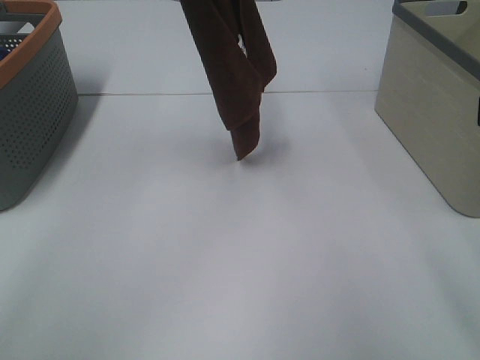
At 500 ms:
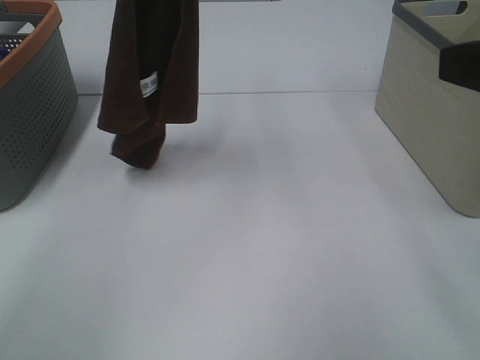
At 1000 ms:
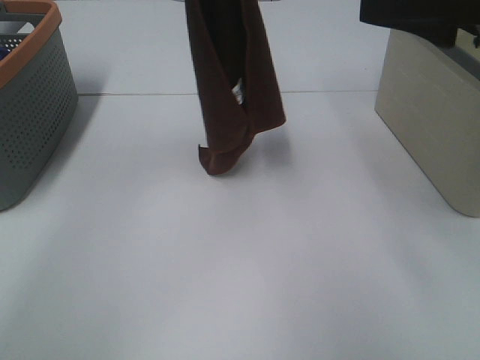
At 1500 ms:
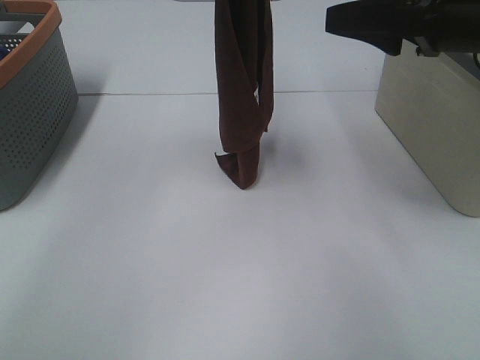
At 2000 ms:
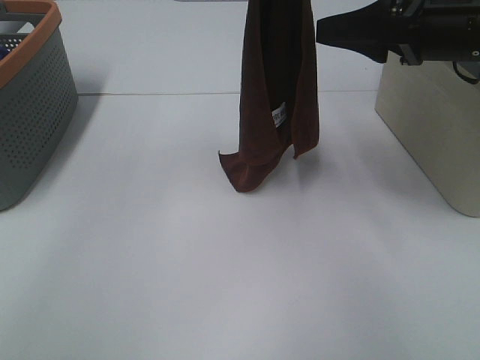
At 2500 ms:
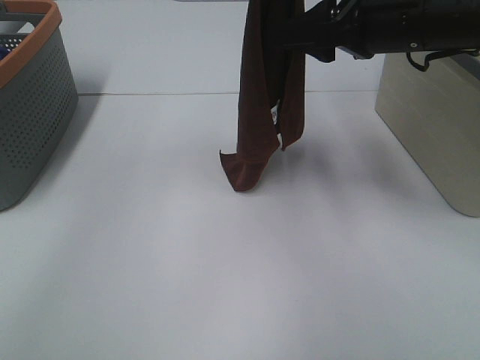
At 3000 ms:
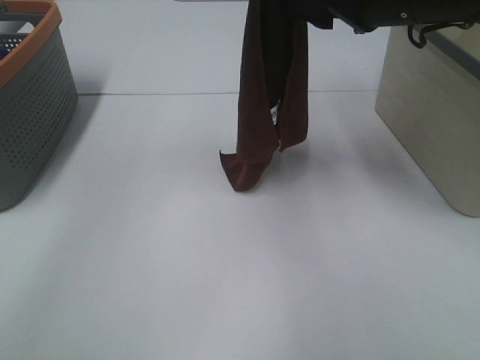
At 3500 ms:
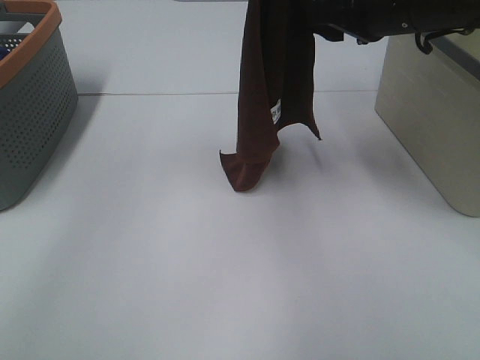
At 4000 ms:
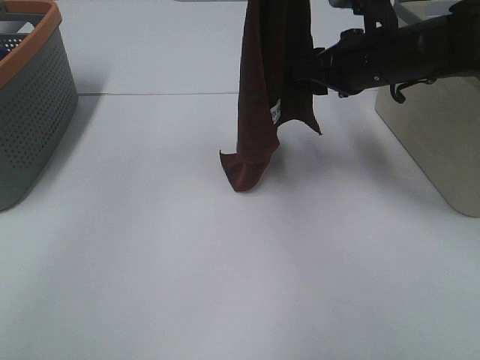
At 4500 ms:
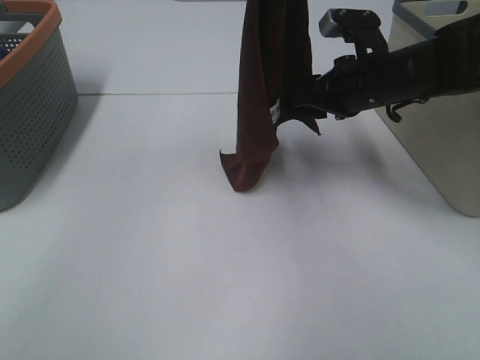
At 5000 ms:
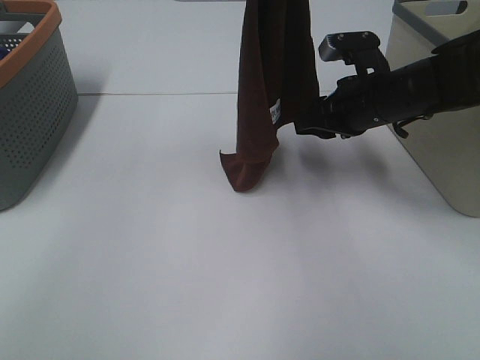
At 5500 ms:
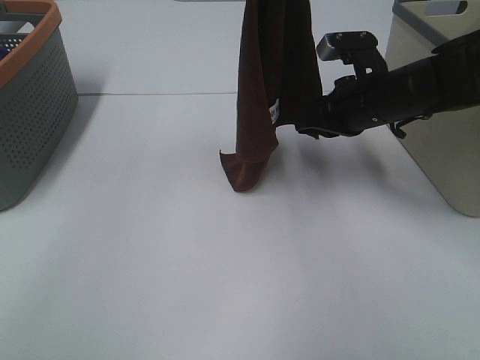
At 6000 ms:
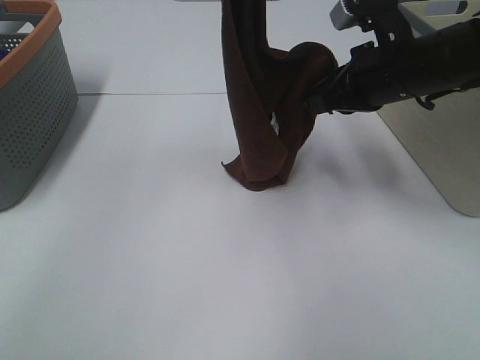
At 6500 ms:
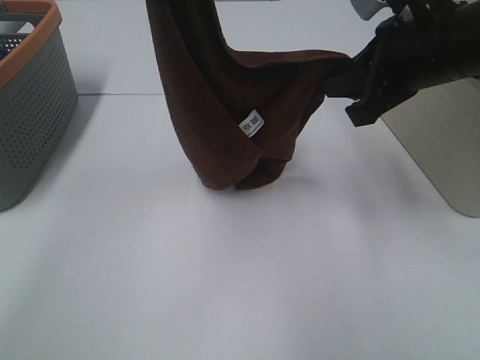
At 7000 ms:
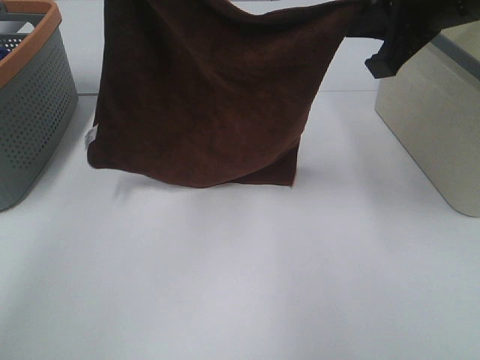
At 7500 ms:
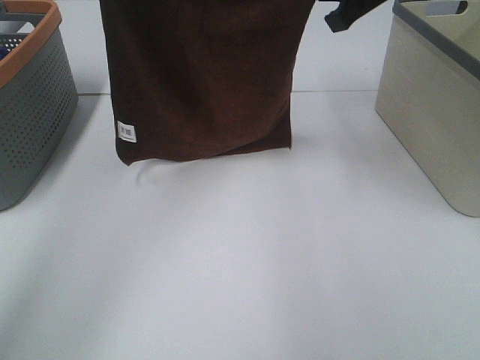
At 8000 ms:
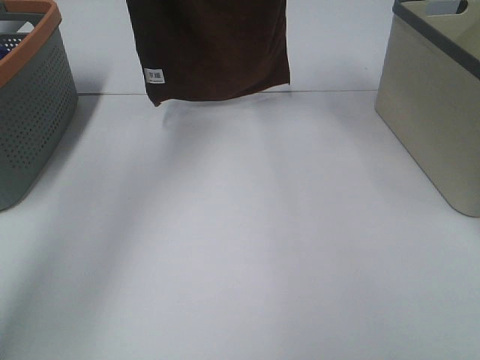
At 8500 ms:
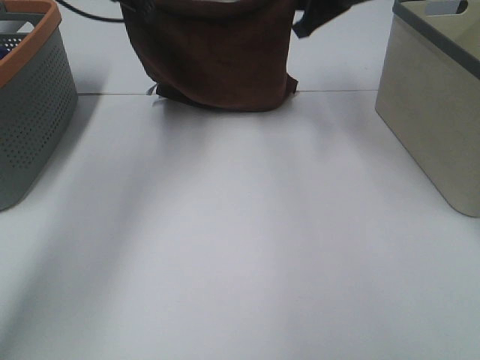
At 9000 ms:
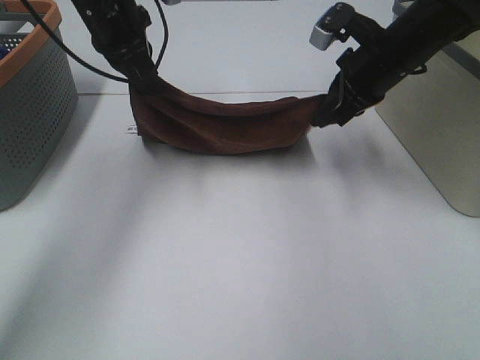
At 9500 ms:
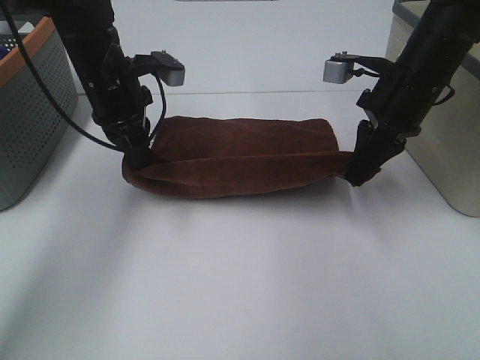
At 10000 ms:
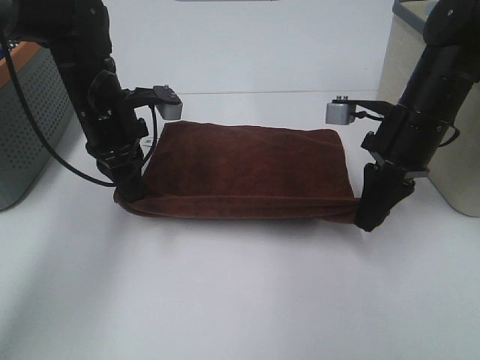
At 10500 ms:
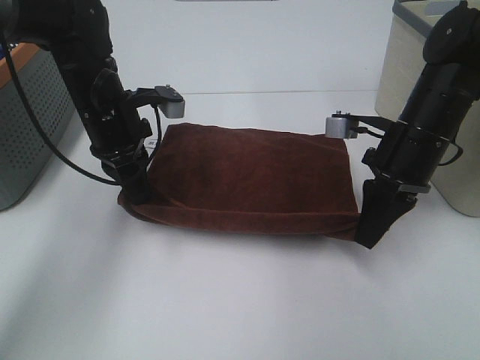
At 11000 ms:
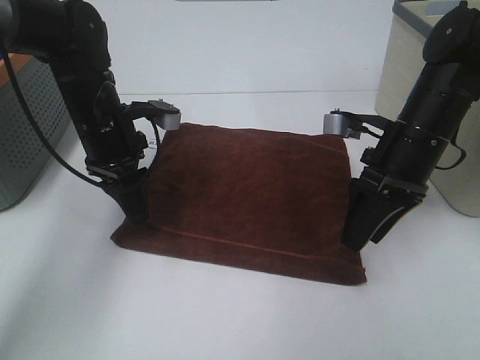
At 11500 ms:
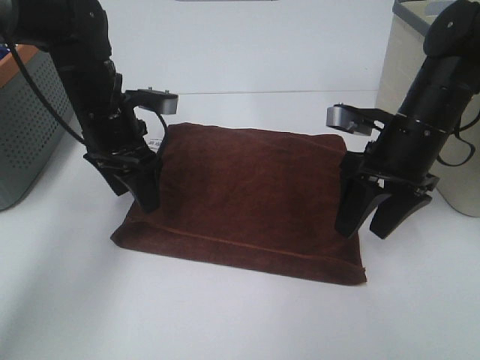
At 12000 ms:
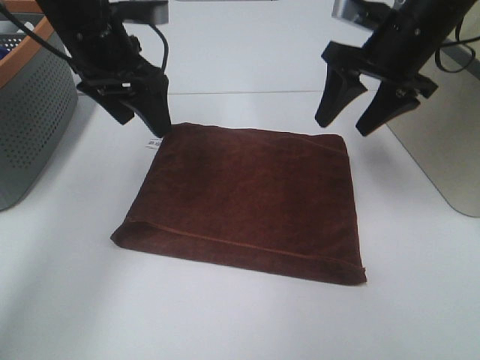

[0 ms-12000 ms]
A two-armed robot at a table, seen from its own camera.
Task of the whole recording: Remove the towel and place it.
Step, 0 ms to 3500 ms: Right hand: grab a corner of the brown towel and straighten it.
Step, 4000 ms to 6000 ms: Left hand: spread the brown towel flat on the table.
Step, 4000 ms to 6000 ms: Right hand: spread the brown towel flat on the table.
0 ms to 2000 ms: The left gripper goes roughly 10 cm to the right and downward. Meanwhile the right gripper goes approximately 20 cm forward.
2000 ms to 4000 ms: The right gripper travels downward and forward by some 10 cm.
4000 ms to 6000 ms: The right gripper closes up.
6000 ms to 8000 ms: The left gripper heads forward and to the left, covering approximately 20 cm. Meanwhile the right gripper goes about 20 cm forward and upward.
8000 ms to 10000 ms: The two grippers go roughly 25 cm downward and backward.
10000 ms to 12000 ms: The right gripper shifts some 10 cm upward and forward, and opens. The left gripper goes some 10 cm upward, and opens.

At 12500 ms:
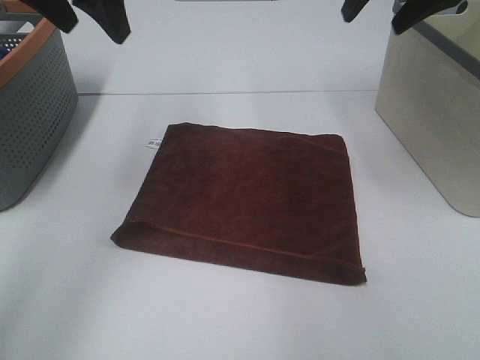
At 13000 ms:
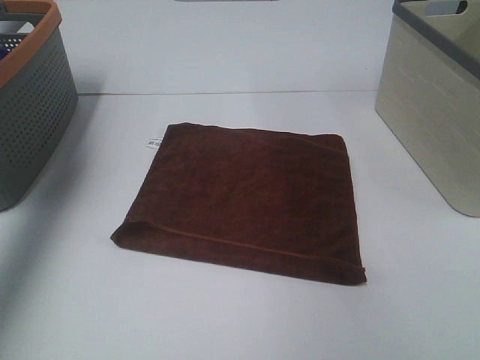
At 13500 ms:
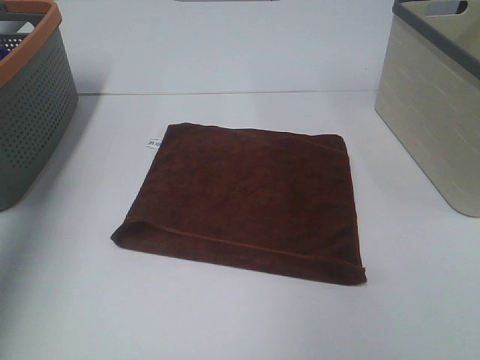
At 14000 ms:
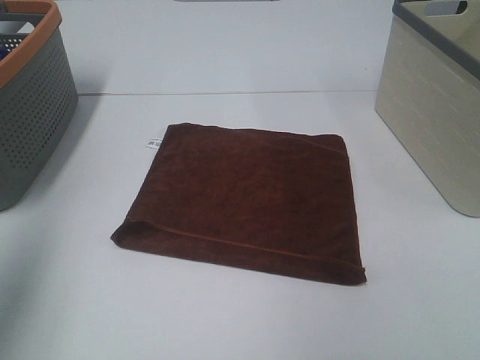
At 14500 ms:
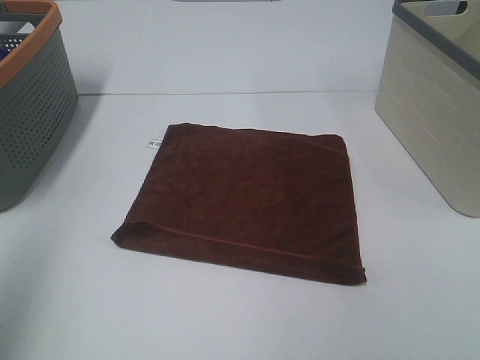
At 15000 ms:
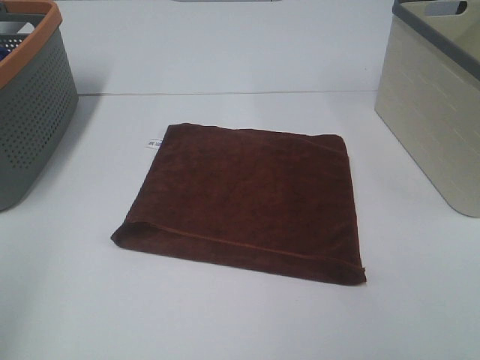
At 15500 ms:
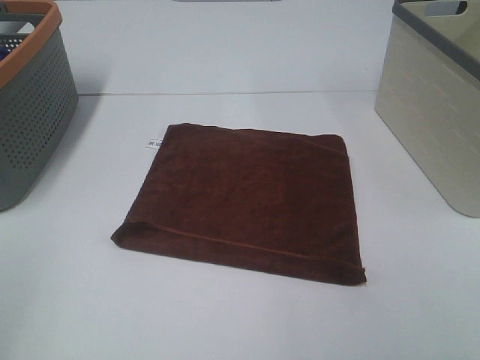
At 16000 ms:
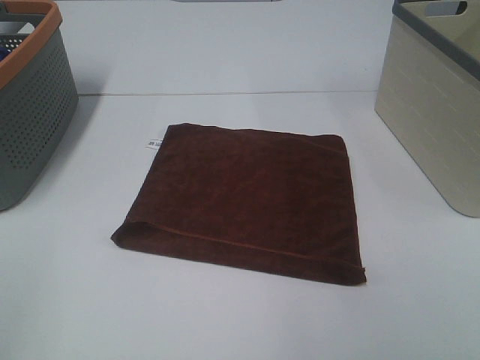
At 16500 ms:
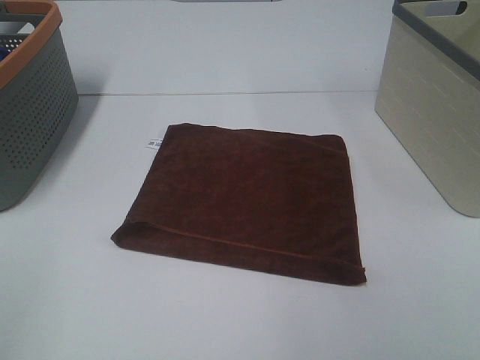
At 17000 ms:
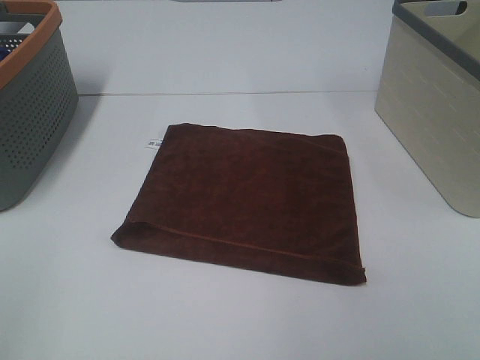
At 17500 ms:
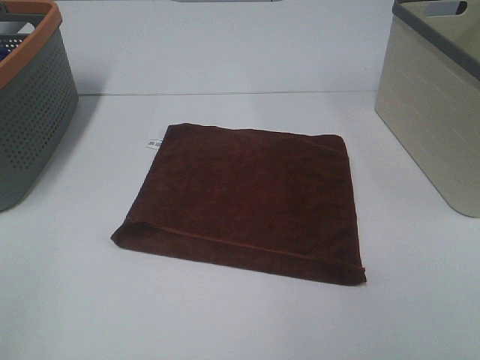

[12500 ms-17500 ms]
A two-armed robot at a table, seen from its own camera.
Task of the whole recording: Remove the towel and place it.
12500 ms to 15000 ms: The left gripper travels backward and to the left by about 35 cm; the right gripper is displaced backward by approximately 40 cm.

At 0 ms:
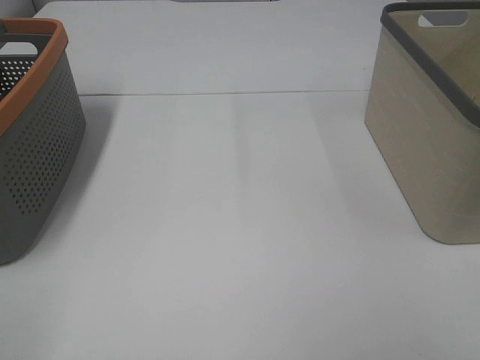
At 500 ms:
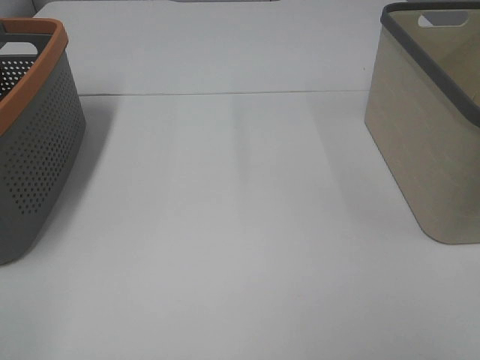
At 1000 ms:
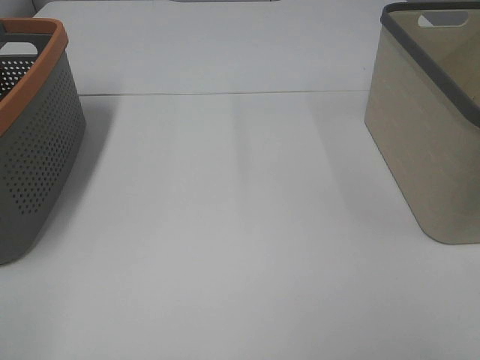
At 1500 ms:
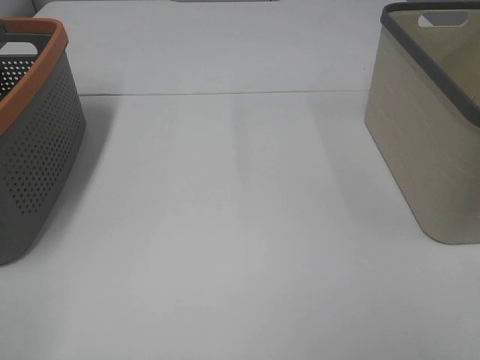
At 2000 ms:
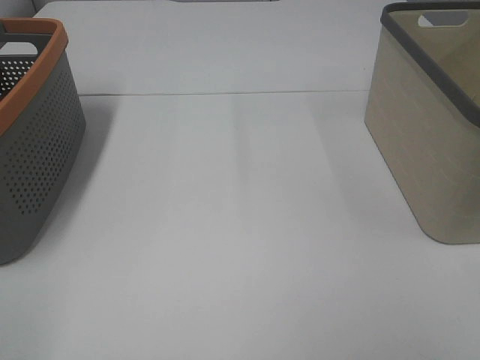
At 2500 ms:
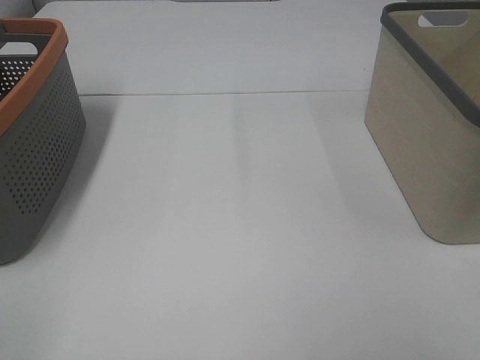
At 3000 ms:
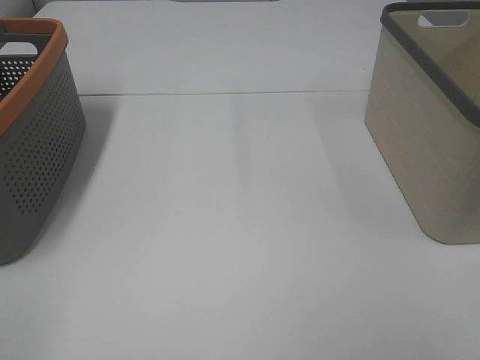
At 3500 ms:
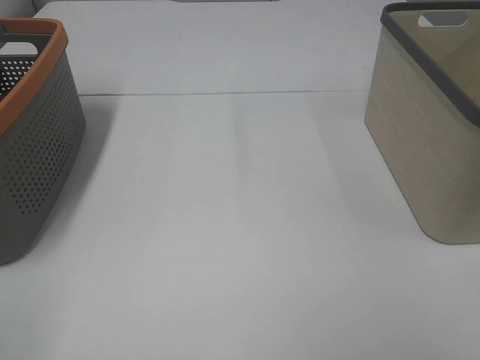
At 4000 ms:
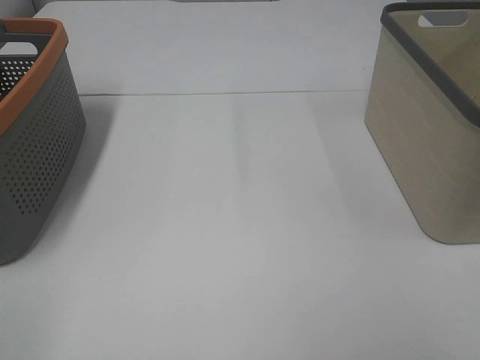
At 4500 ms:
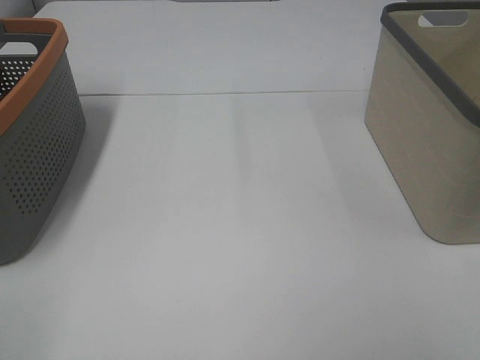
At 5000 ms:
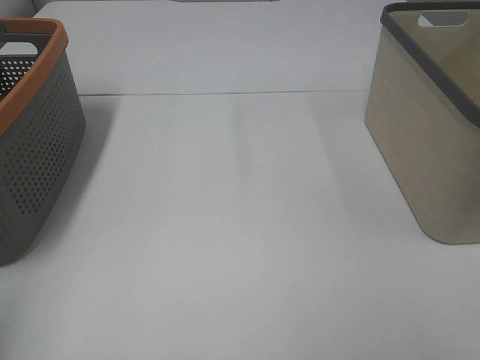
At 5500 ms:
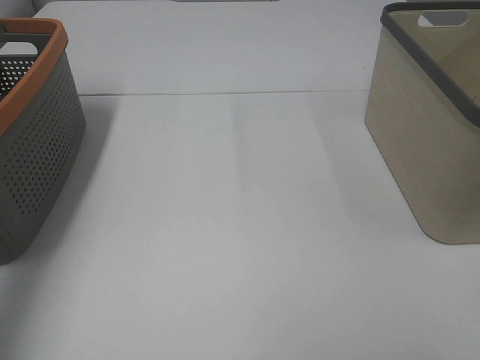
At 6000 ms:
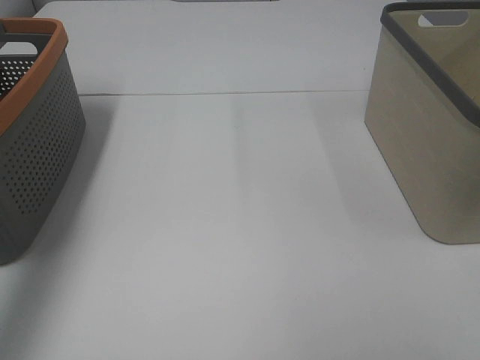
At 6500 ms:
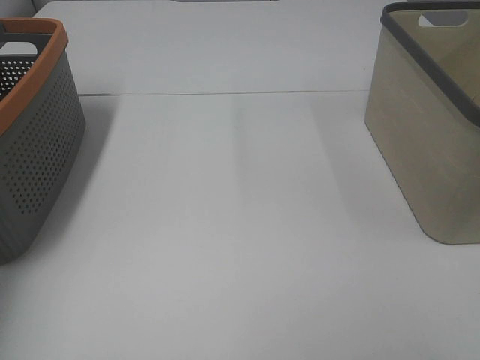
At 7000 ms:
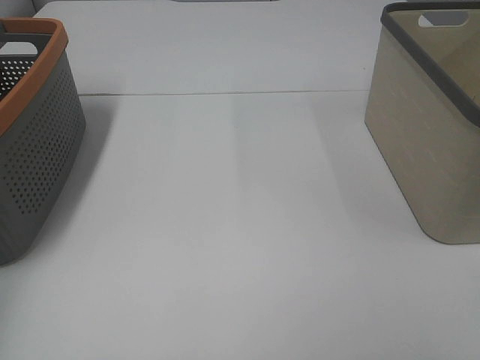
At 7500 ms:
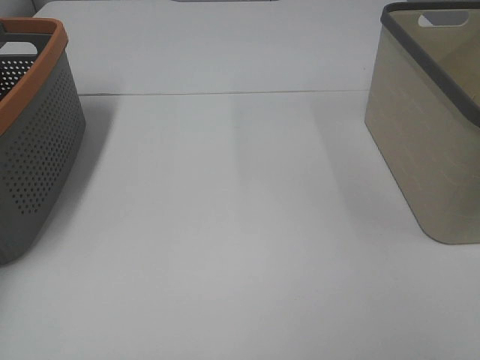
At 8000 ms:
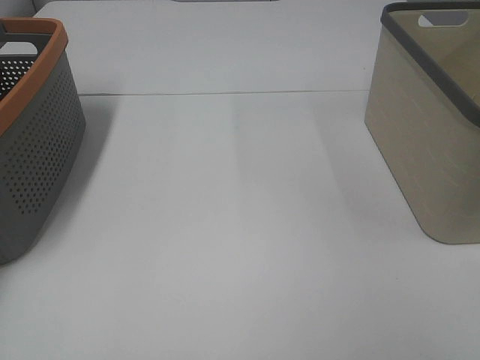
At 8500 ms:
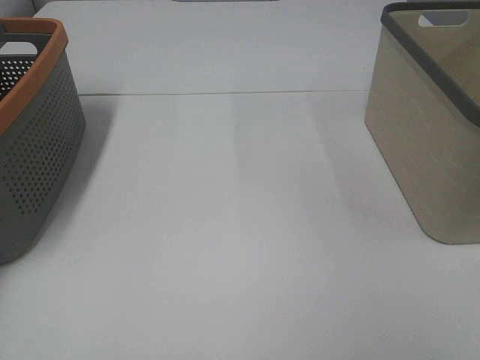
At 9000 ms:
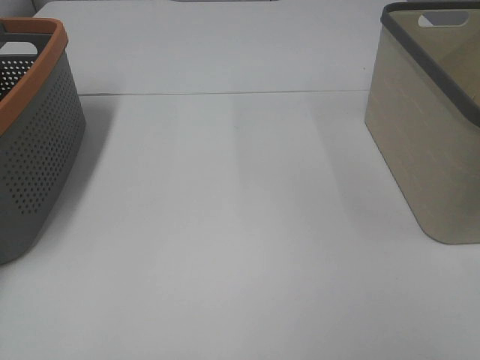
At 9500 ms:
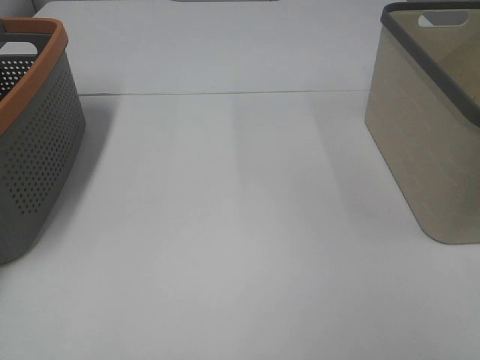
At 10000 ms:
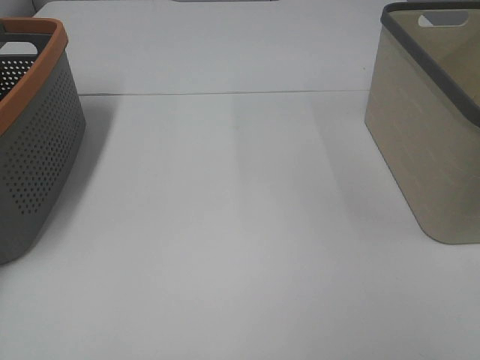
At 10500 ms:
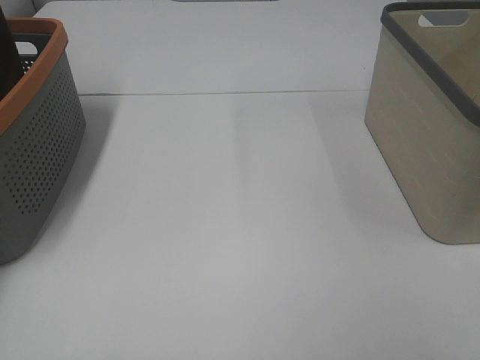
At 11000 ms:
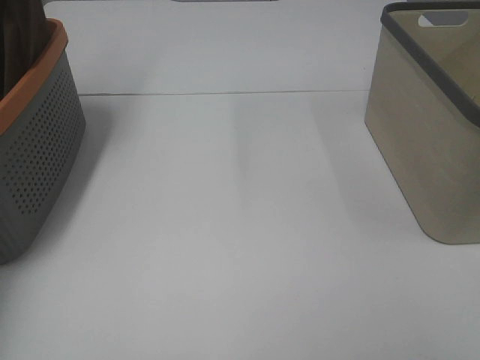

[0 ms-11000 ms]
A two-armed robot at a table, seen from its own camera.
Task of the whole recording: Remove the towel and place it.
0 ms to 3500 ms: Both grippers stay put.
3500 ms to 5500 ms: The left gripper goes approximately 25 cm forward and upward.
5500 ms to 7500 ms: The left gripper moves forward, downward and to the left, approximately 30 cm.
9000 ms to 11000 ms: The left gripper heads upward and to the right, covering roughly 25 cm, and closes.
